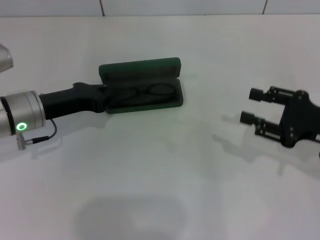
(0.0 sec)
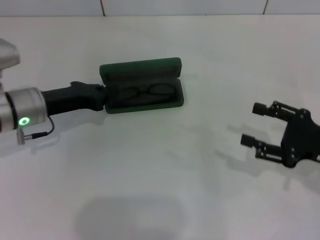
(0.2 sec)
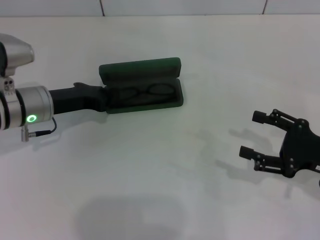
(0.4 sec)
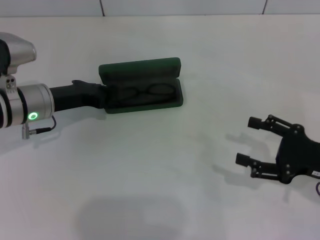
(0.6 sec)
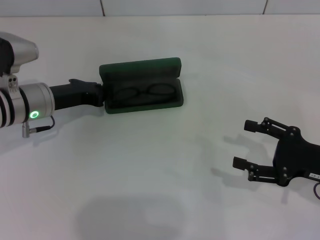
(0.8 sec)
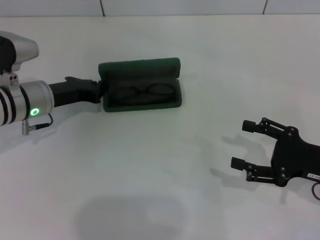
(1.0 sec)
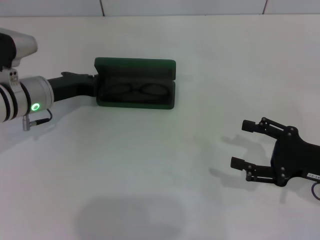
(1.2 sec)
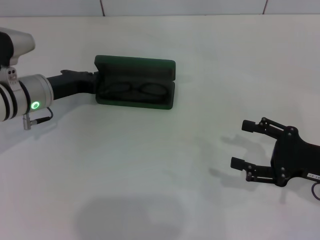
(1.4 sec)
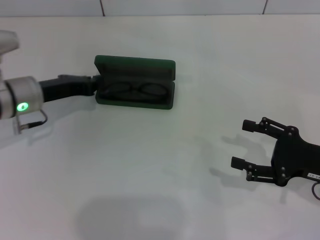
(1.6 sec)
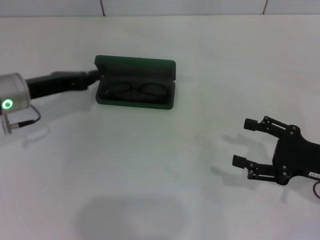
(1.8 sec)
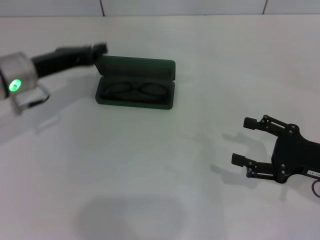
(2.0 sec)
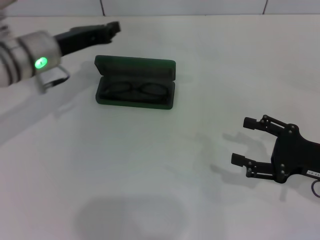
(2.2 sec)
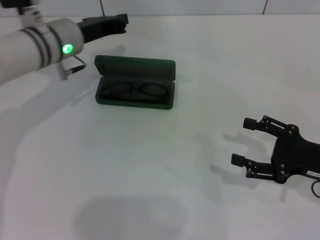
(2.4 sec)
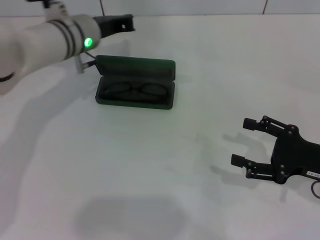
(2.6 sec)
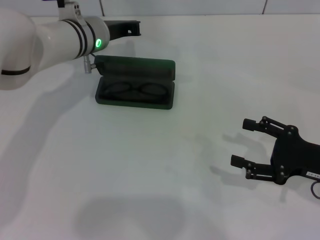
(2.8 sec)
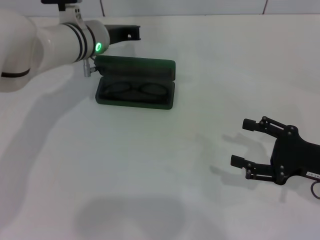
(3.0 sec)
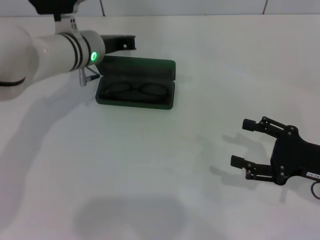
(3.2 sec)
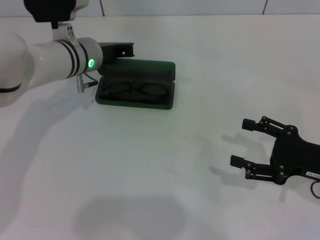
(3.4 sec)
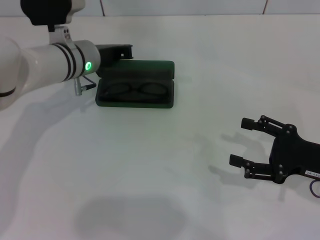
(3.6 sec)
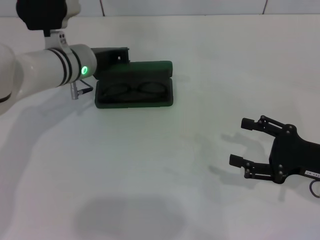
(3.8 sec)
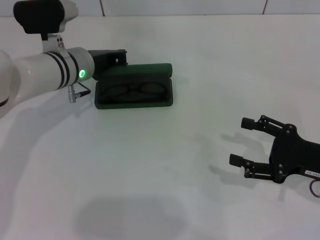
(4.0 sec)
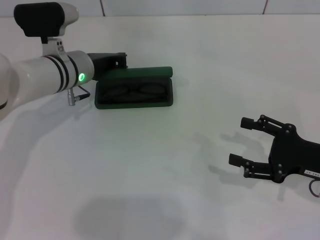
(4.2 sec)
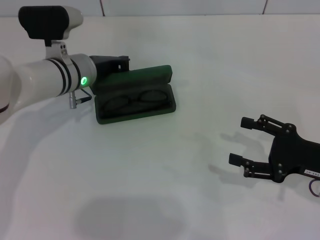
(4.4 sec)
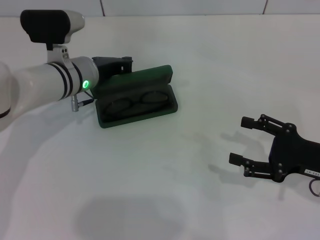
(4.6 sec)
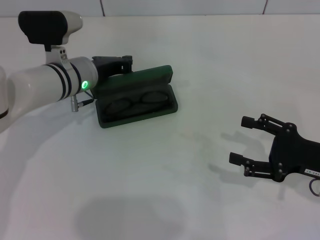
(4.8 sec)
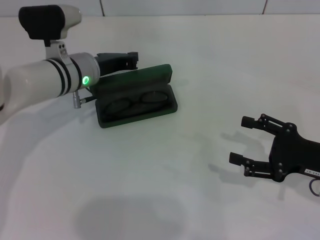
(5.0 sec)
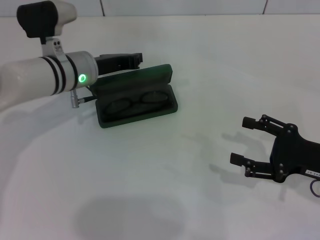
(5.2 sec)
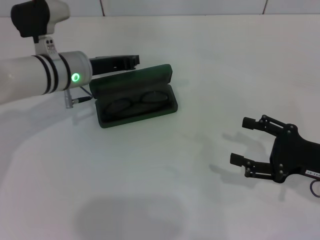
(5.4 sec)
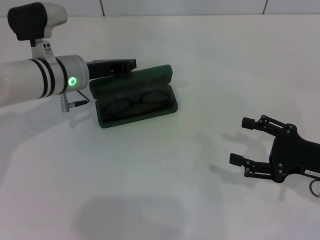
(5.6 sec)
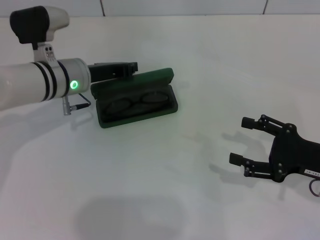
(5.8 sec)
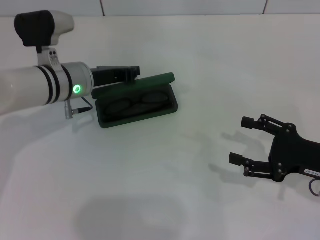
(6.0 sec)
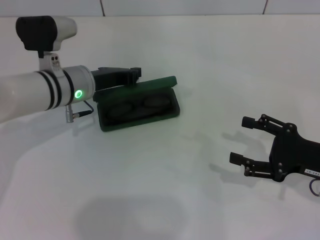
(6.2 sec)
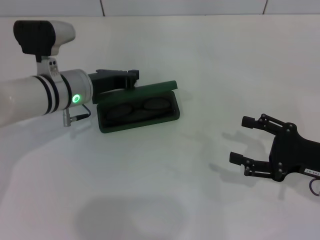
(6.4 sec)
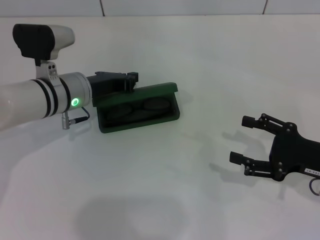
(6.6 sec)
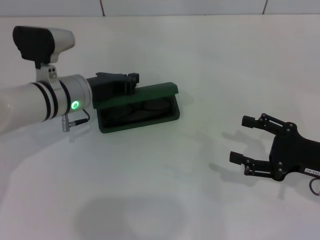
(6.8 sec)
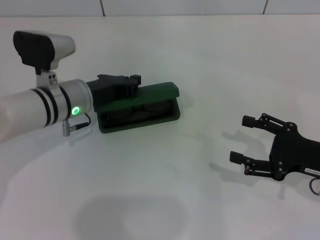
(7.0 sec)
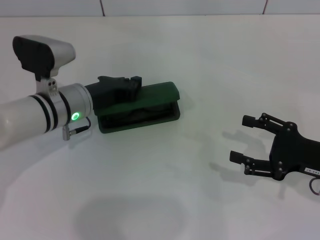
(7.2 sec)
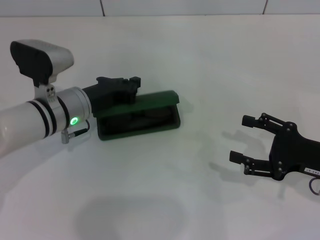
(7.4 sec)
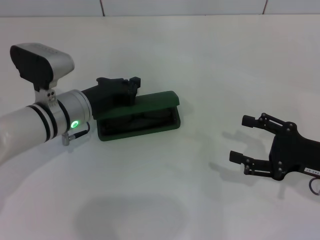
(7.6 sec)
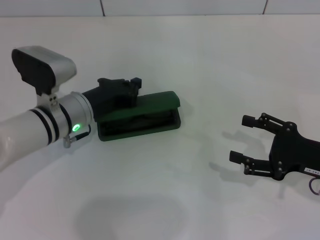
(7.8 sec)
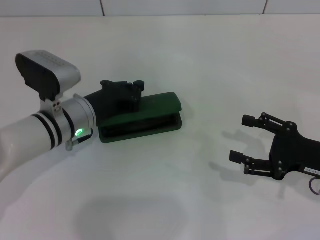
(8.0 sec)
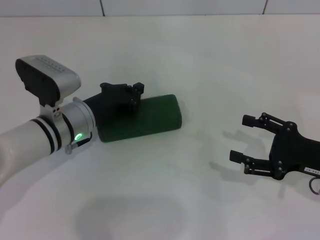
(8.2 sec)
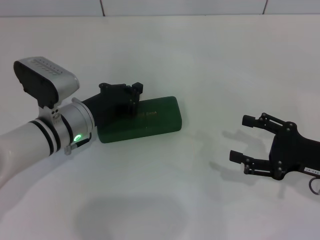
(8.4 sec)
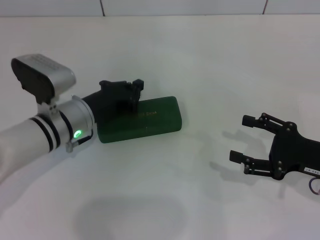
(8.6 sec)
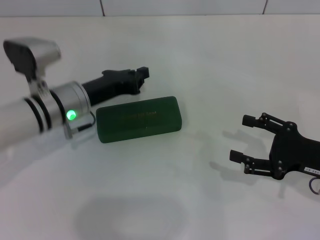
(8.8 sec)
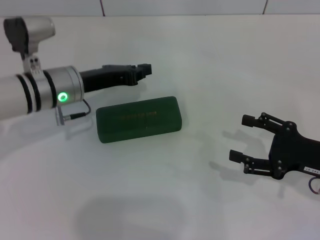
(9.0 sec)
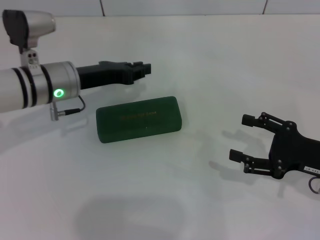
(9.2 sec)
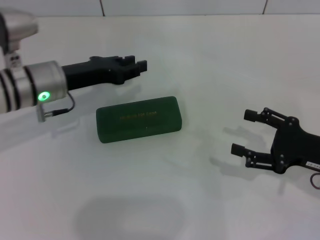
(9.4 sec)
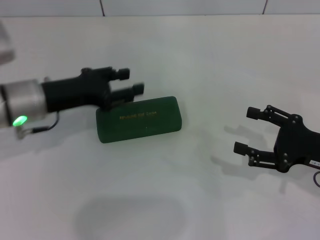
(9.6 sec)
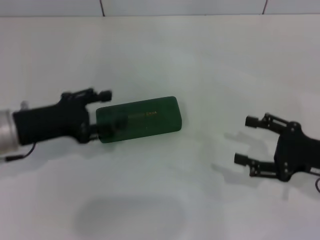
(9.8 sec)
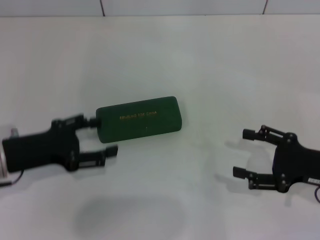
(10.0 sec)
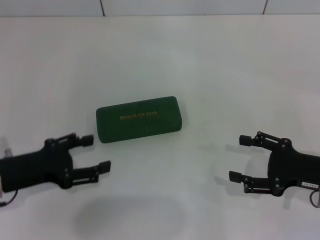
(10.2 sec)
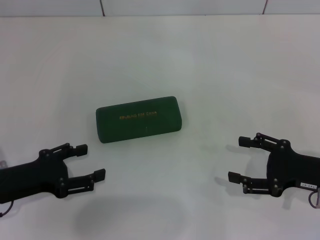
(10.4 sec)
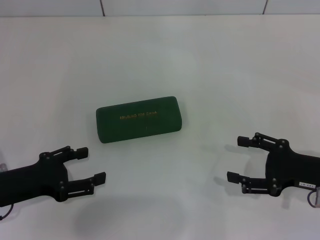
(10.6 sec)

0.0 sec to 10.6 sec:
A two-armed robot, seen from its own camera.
Step, 0.0 sec to 8.4 sec: Close the glasses case with your left hand.
0.0 sec to 1.6 sec: The right gripper opens its fingers.
1.6 sec to 3.0 sec: The left gripper is displaced to the right and forward by approximately 15 cm.
3.0 sec to 4.6 sec: The left gripper changes place by some 5 cm.
4.6 sec to 6.0 sec: The grippers move only a little.
6.0 sec to 7.6 sec: The left gripper changes place by about 5 cm.
7.6 sec to 9.0 sec: The grippers move only a little.
9.0 sec to 10.6 sec: The left gripper goes about 20 cm backward and to the left, and opens up.
